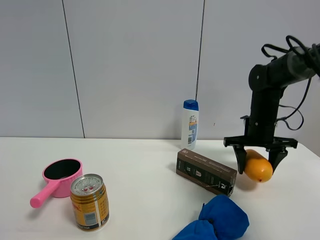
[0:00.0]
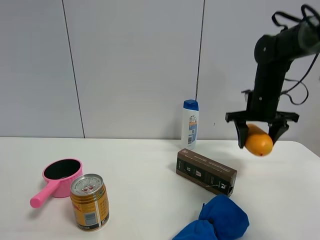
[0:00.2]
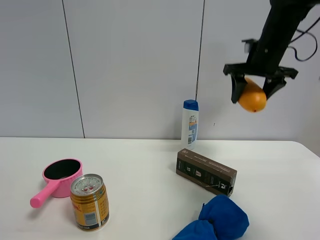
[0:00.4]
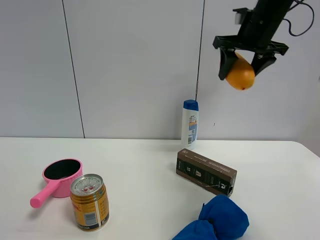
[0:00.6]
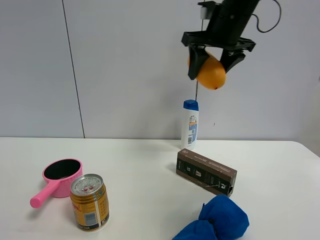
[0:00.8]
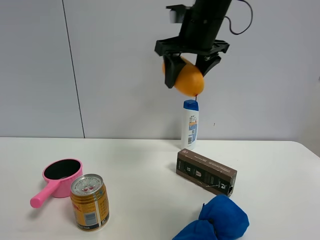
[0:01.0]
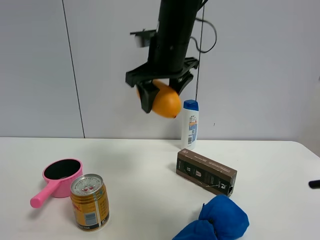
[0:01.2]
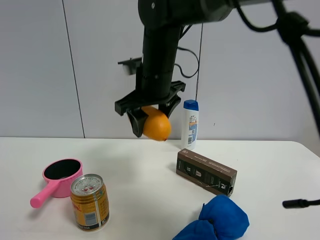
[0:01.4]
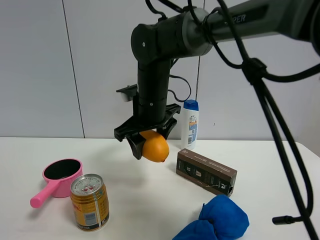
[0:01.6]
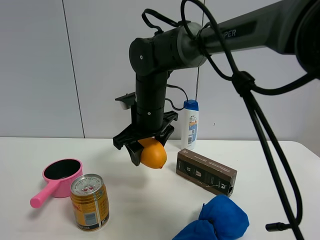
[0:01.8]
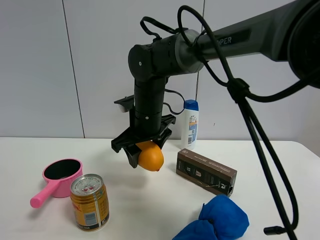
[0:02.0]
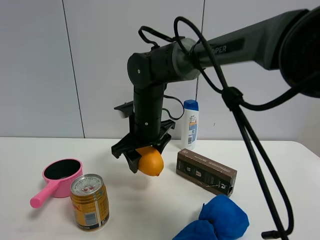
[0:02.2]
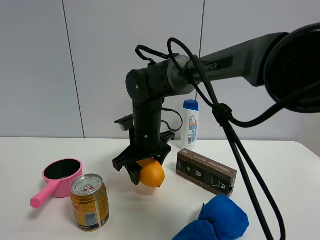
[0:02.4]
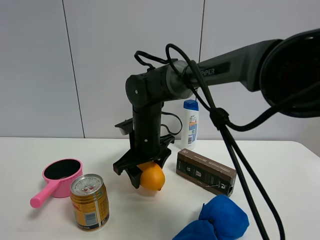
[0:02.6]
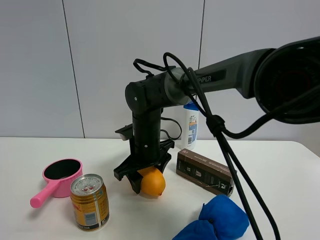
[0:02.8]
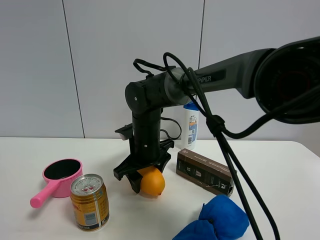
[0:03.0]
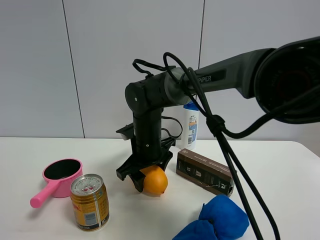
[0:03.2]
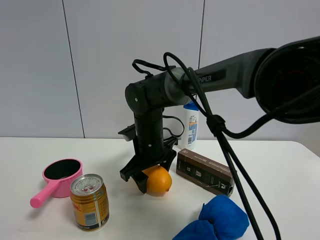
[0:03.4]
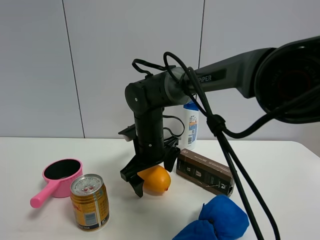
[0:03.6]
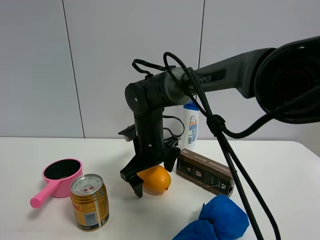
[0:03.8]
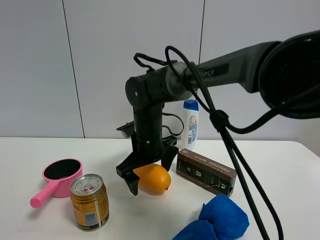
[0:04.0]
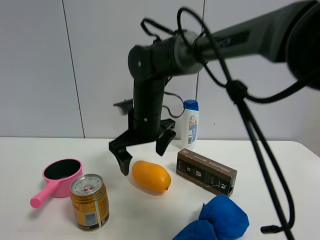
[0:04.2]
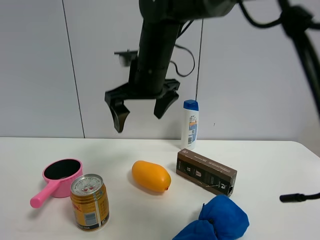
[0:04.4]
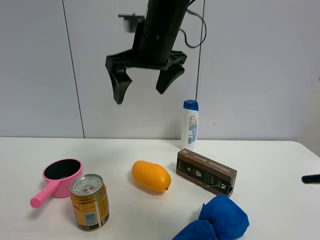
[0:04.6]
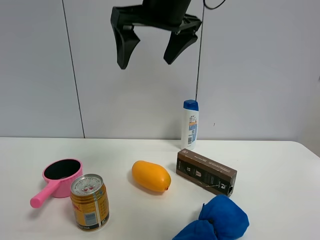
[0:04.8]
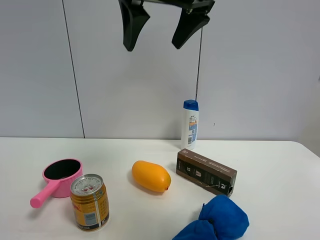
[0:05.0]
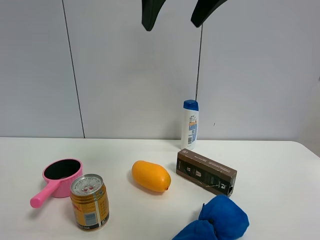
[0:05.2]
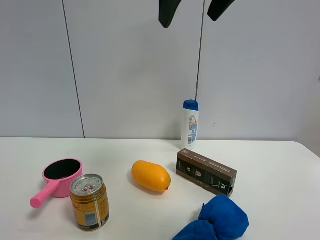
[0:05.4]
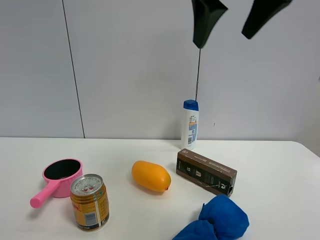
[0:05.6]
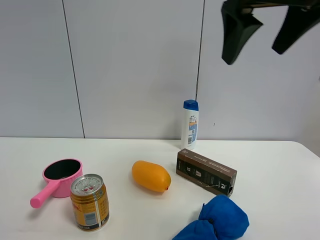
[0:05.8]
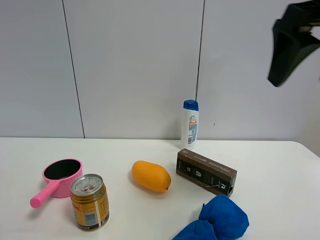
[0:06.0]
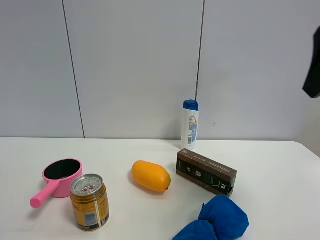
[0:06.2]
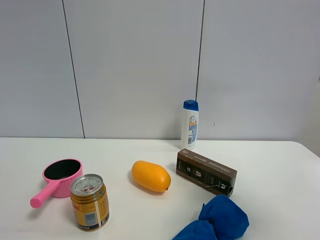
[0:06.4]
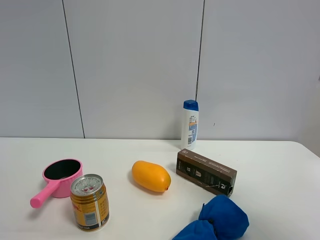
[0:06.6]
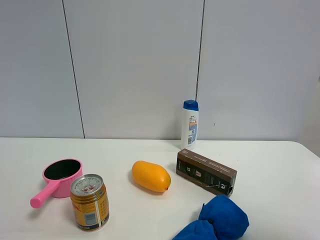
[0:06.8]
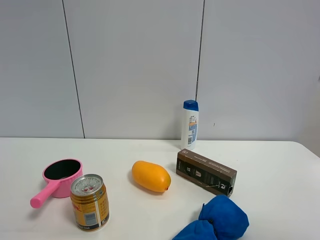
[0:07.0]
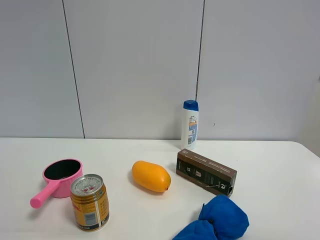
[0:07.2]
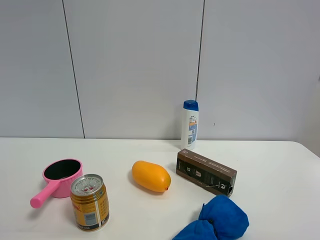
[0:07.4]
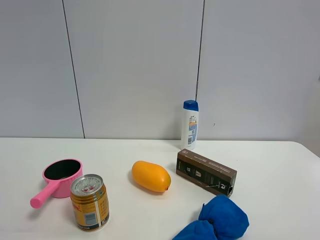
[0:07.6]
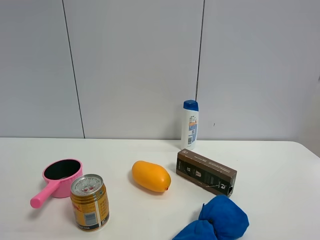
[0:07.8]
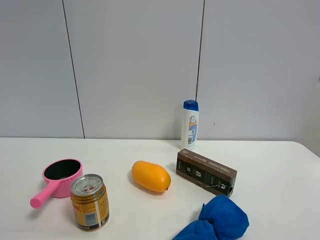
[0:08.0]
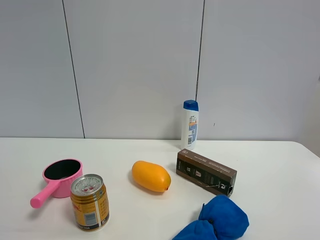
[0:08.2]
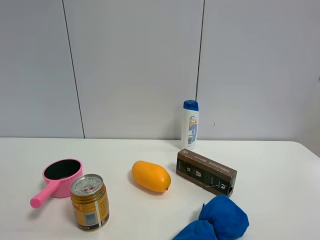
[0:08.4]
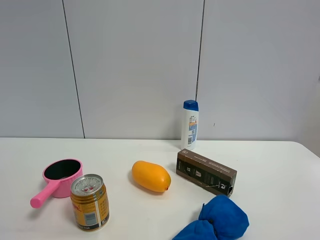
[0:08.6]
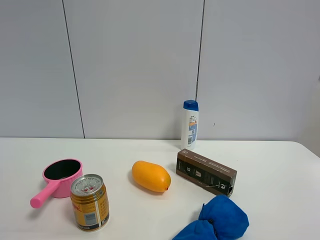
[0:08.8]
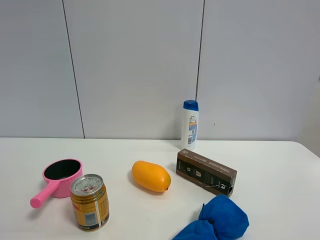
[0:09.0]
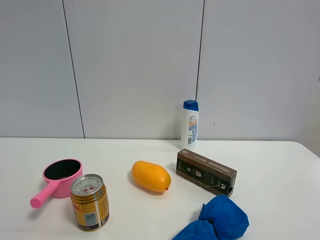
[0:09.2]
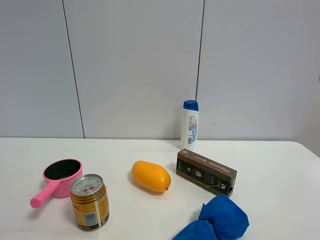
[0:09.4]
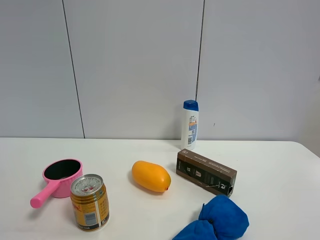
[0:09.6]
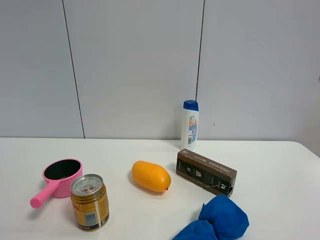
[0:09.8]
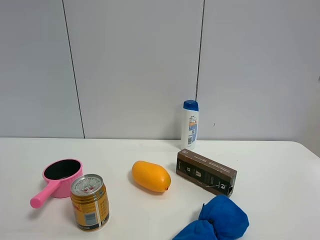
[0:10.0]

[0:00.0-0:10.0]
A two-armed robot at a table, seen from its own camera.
Task of the whole recording: the gripper move the object.
Step, 0:00.0 to 0:03.6: Place the mango on the table with the right gripper.
0:00.0 to 0:01.4: The right gripper heads to the left, covering some 25 cm.
0:01.4 to 0:02.8: The right gripper goes approximately 15 cm downward.
0:02.8 to 0:04.2: The right gripper goes about 5 cm upward, and opens up.
0:04.2 to 0:05.8: The right gripper shifts about 30 cm upward, to the right and backward.
0:05.8 to 0:07.2: The right gripper travels backward, to the right and downward by some 30 cm.
0:08.6 to 0:10.0: Both grippers stay about where they are.

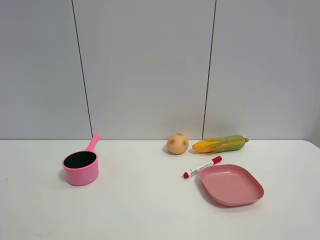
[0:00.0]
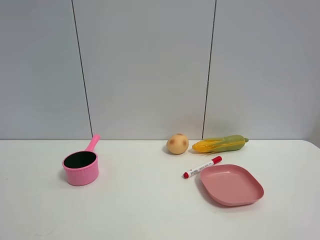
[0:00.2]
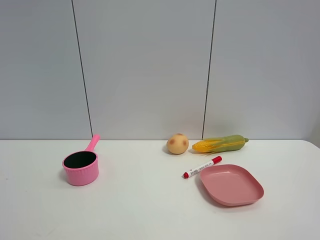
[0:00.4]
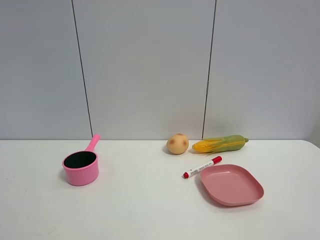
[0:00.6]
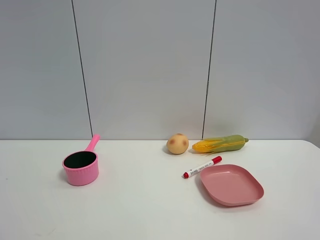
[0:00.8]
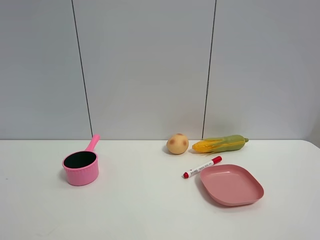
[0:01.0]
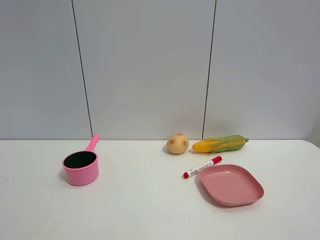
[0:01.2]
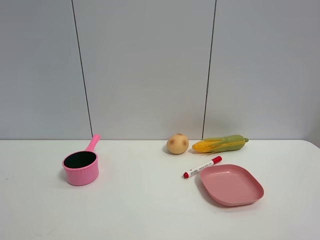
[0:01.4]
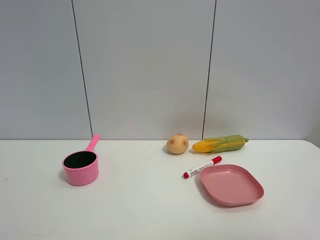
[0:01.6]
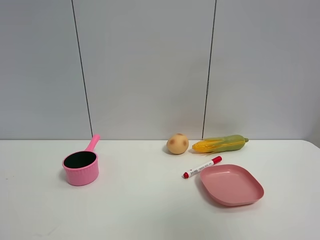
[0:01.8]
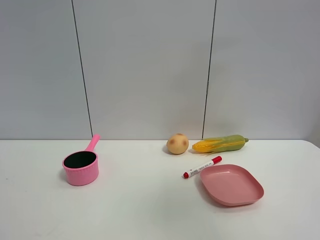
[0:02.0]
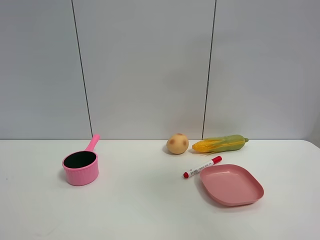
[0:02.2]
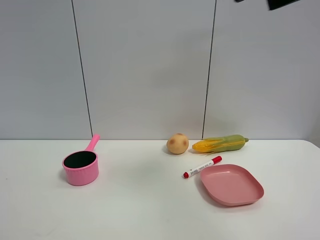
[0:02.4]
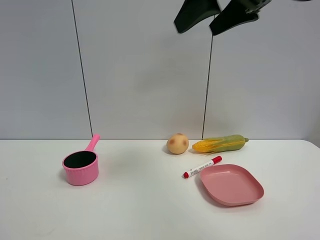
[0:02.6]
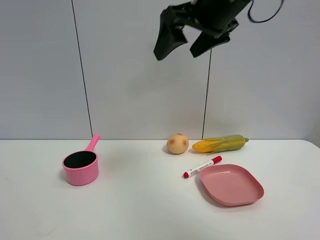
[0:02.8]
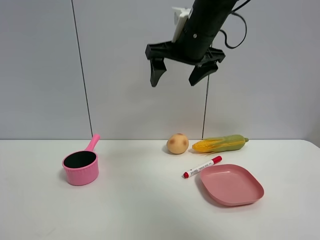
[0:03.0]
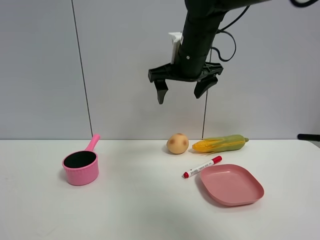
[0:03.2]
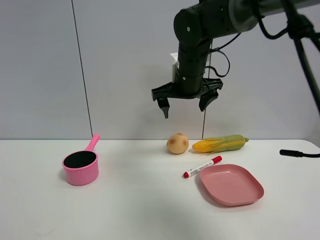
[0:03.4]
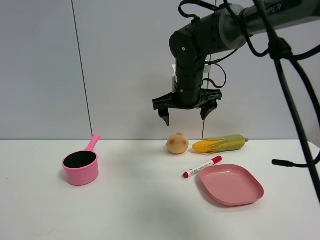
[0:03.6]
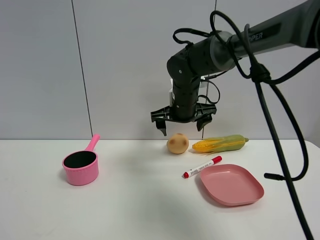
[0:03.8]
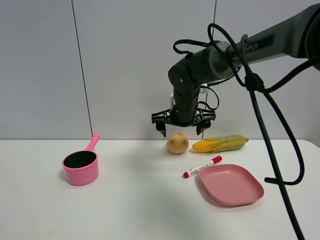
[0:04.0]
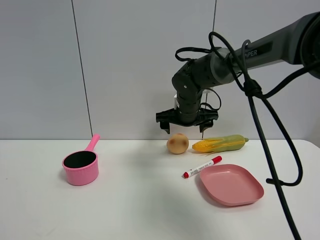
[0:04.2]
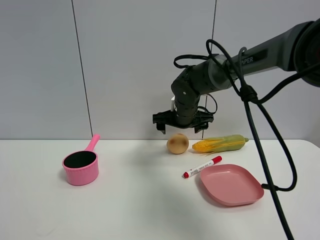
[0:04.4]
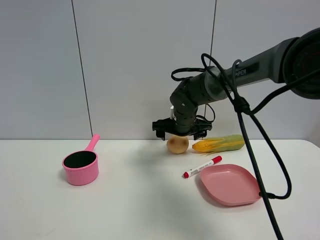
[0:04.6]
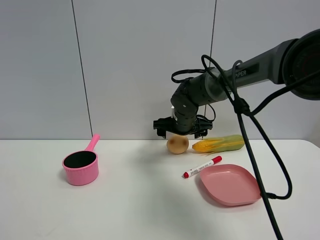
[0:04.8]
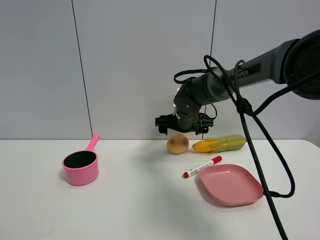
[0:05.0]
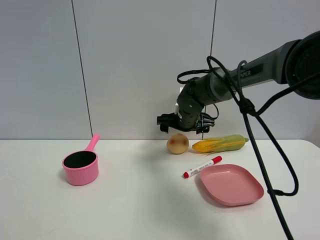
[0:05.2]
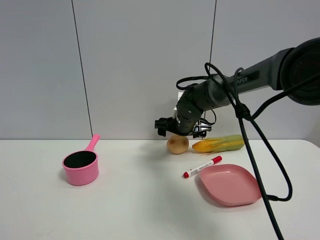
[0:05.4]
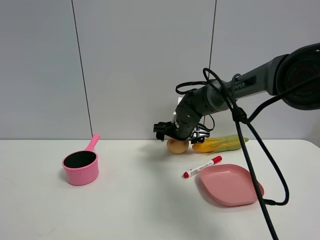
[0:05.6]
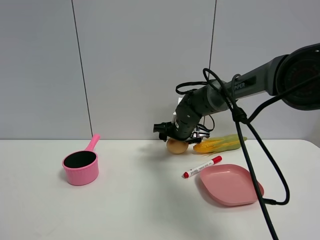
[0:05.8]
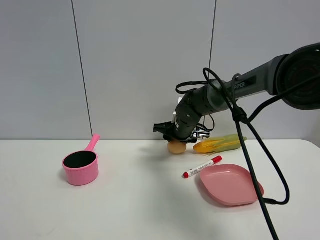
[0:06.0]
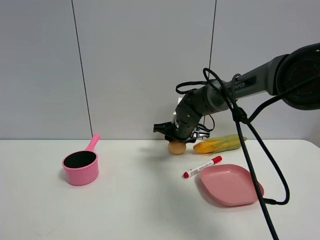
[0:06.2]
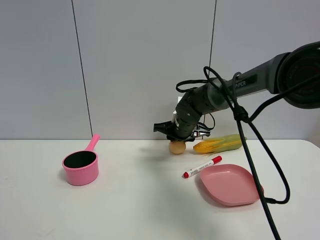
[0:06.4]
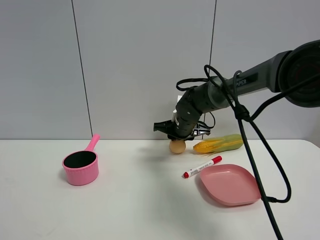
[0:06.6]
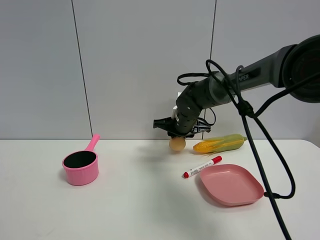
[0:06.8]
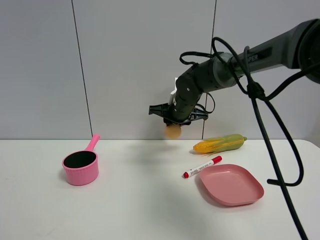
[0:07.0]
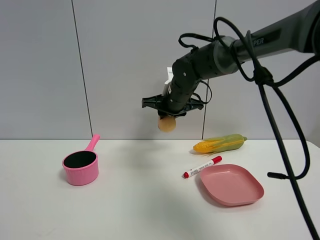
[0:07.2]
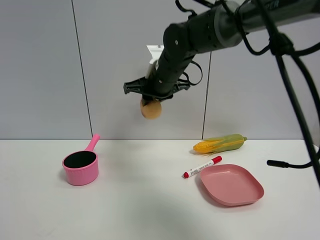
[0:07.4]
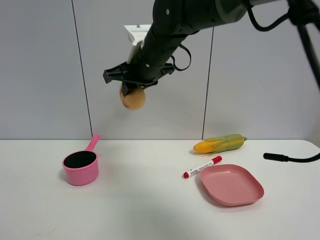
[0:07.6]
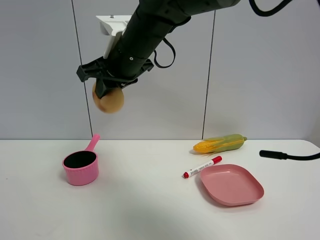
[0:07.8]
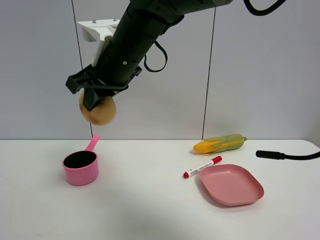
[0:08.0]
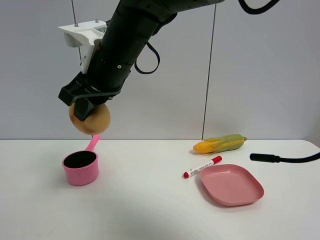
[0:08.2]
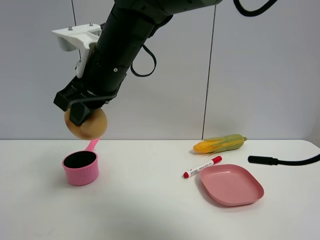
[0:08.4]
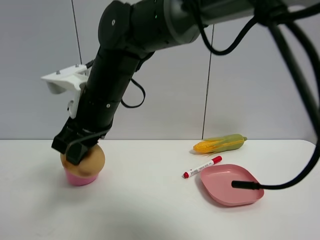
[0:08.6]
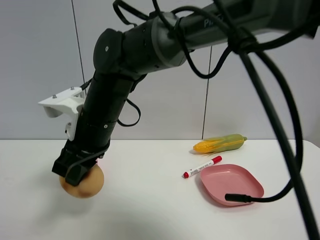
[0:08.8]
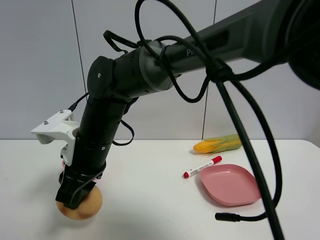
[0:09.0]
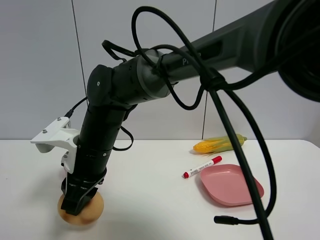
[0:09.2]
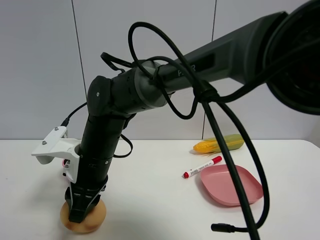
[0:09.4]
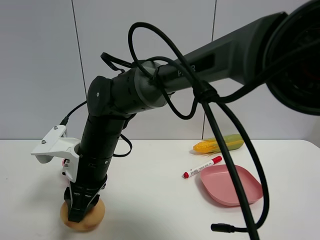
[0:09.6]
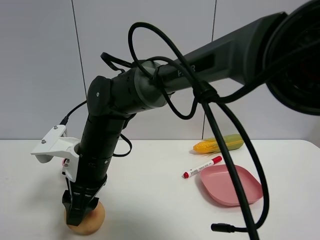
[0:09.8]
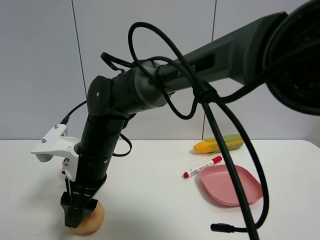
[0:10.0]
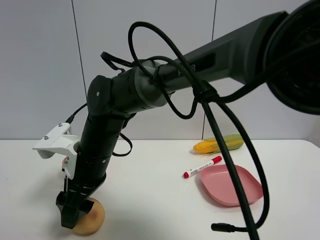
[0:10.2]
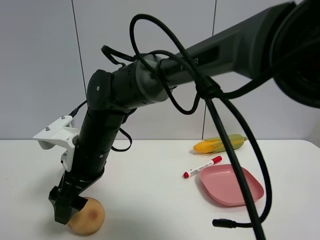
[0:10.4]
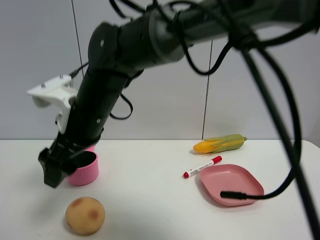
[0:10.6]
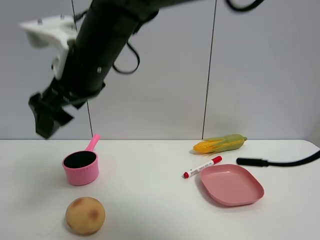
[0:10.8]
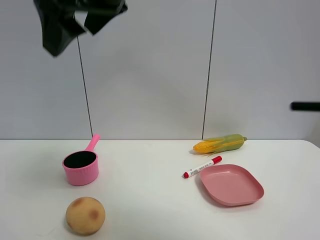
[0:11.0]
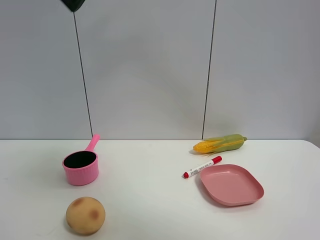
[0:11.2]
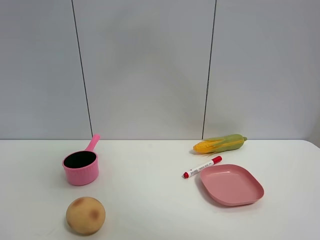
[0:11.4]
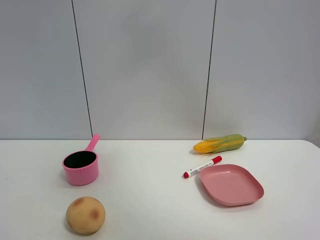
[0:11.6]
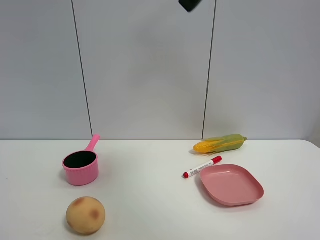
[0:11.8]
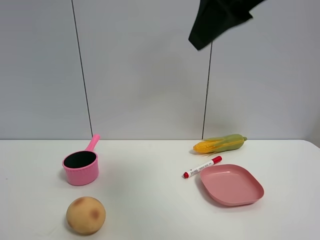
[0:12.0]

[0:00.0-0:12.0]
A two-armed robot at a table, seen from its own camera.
Task of the whole recording: the gripper move the object.
Step, 0:00.0 to 0:06.0: Grasp the egg yolk pastry with the right gripper.
Step, 0:06.2 to 0:10.4: Place the egg yolk pastry on the table with the right gripper.
0:01.6 to 0:03.0: The right gripper shifts approximately 40 cm forward and to the left.
0:03.0 to 0:04.4: The right gripper is displaced downward and forward by roughly 20 cm.
0:04.4 to 0:06.0: The right gripper closes.
0:06.0 to 0:07.6: The right gripper heads upward, backward and to the left, covering some 20 cm.
0:07.6 to 0:09.0: The right gripper is displaced downward, backward and to the left by approximately 20 cm.
0:09.0 to 0:10.4: The right gripper opens its fingers.
0:10.4 to 0:12.0: The right gripper moves upward and to the right, some 35 cm.
